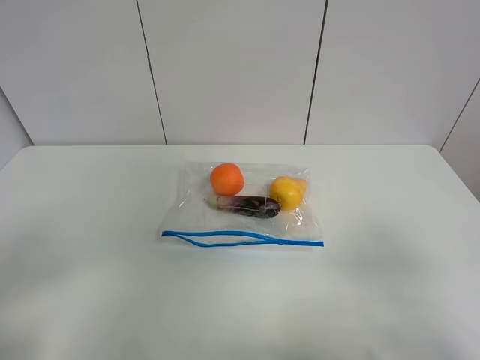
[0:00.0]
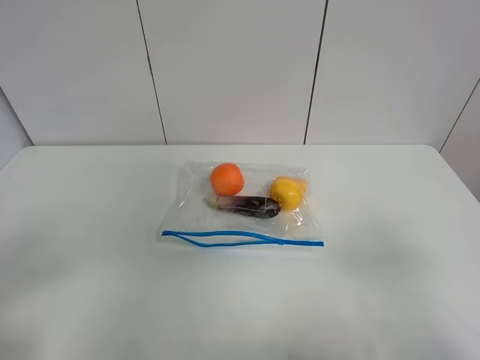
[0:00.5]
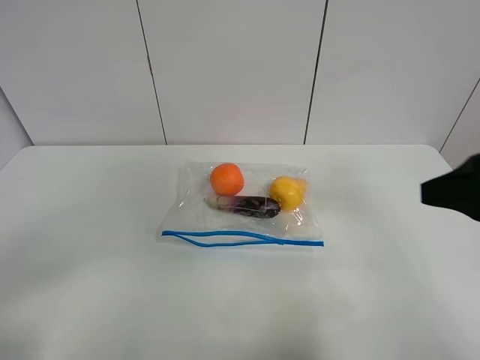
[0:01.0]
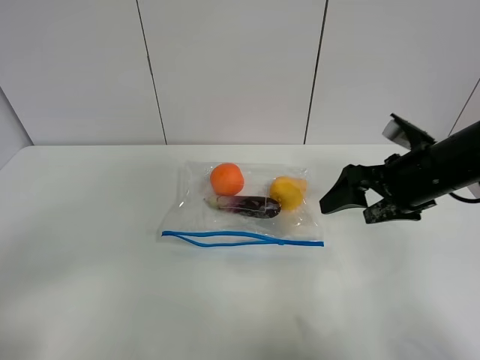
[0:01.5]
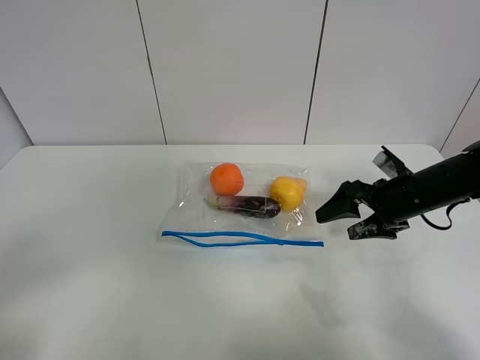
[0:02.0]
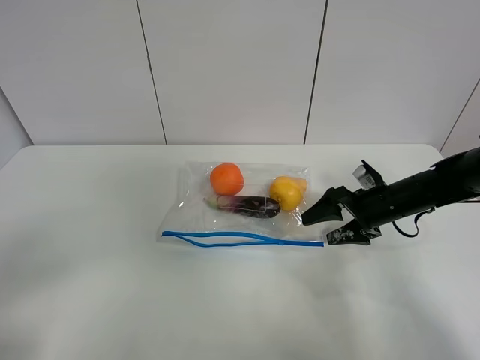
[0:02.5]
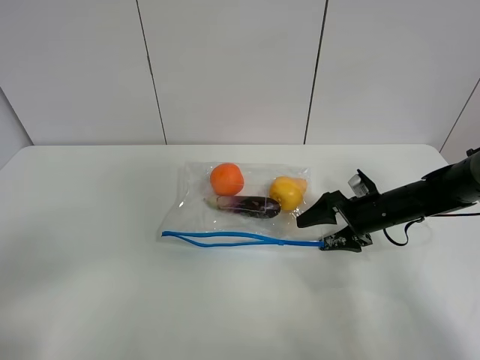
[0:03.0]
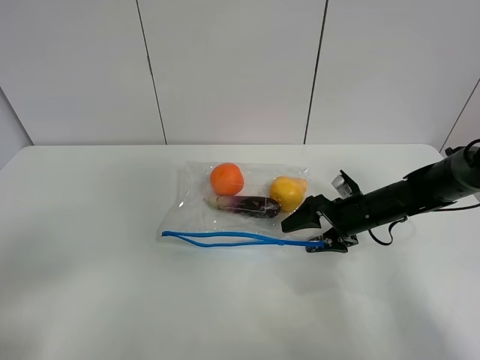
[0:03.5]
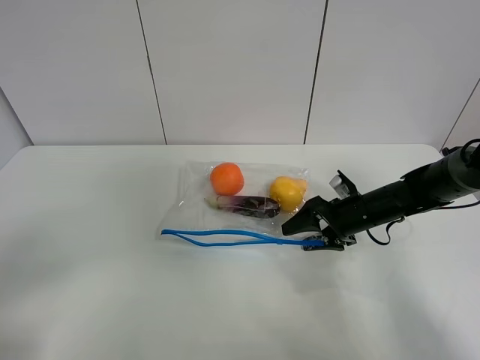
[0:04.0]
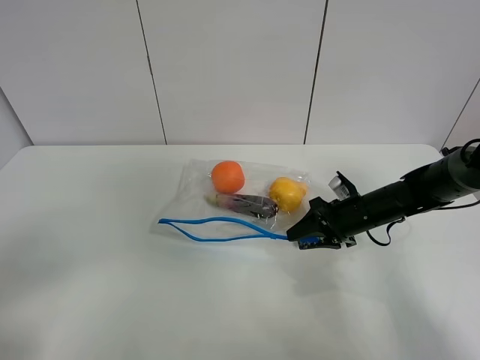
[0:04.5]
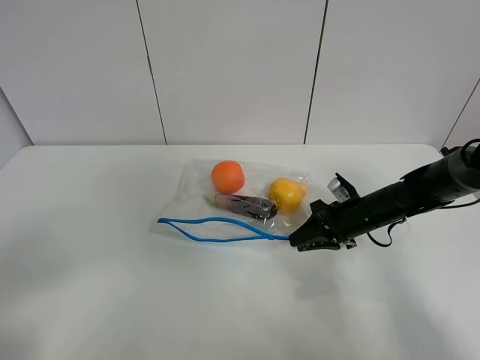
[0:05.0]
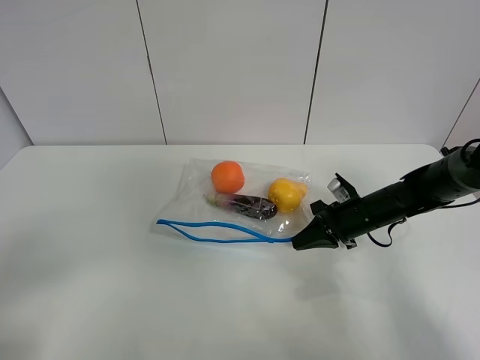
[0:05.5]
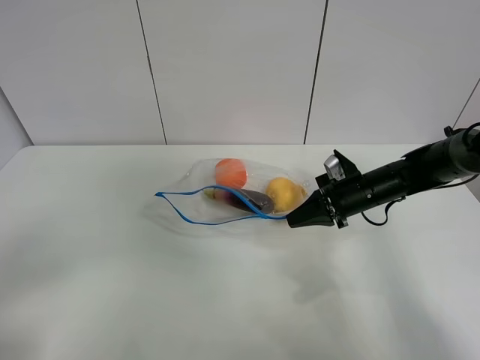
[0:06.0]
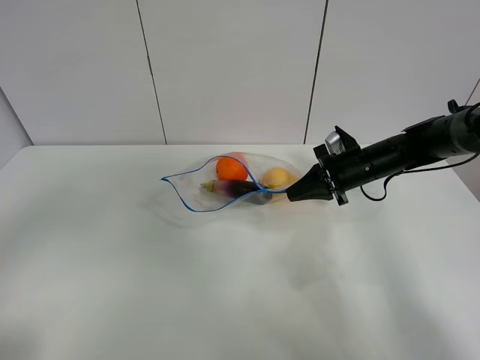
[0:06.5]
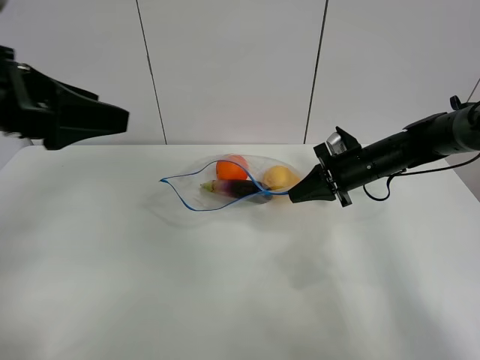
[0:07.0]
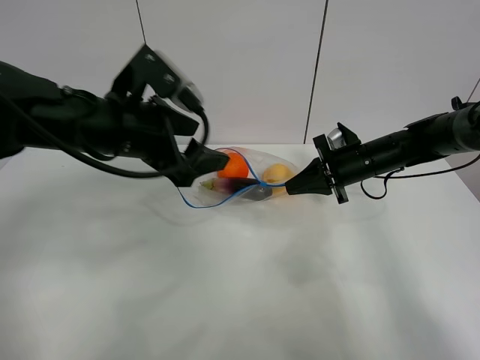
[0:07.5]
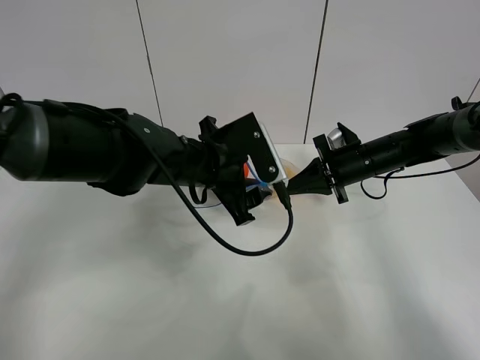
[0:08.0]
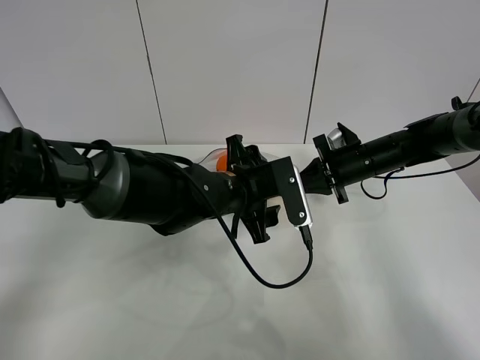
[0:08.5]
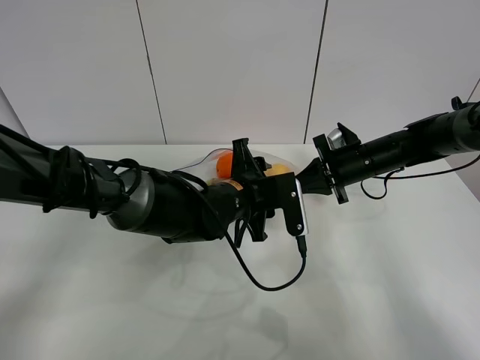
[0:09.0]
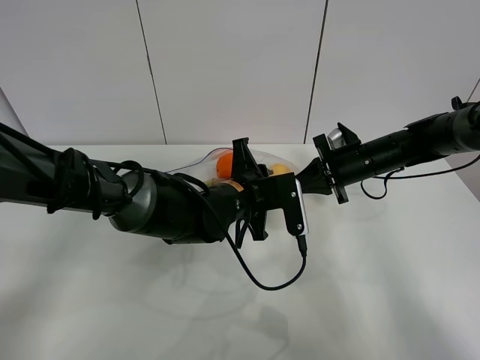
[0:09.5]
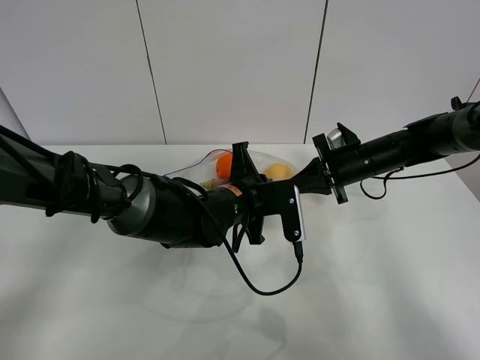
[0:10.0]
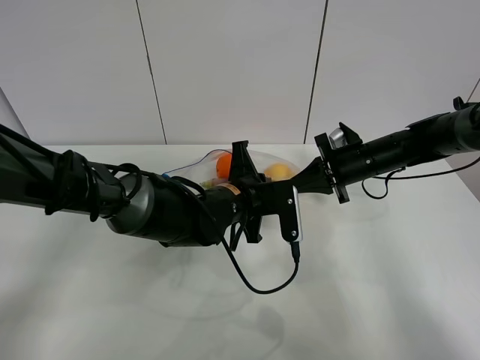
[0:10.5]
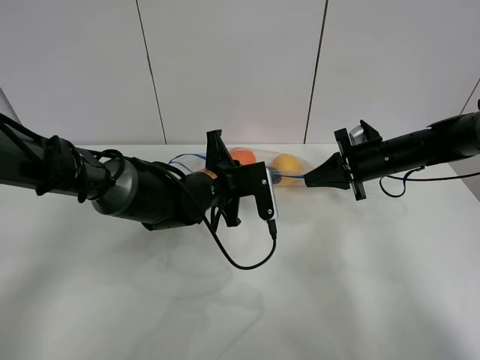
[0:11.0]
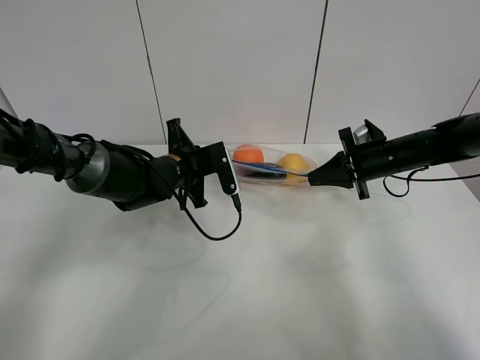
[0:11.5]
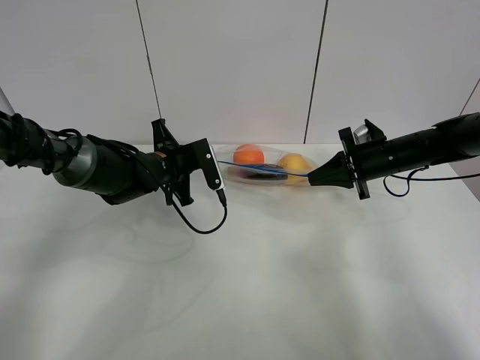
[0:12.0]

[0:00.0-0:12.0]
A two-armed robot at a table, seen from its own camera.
Step, 0:00.0 to 0:05.0: Grasp the fruit bag with right gripper.
Step, 0:05.5 to 0:06.5: Lift the fruit bag with your right gripper.
0:00.0 to 0:02.0: The right gripper heads forward and downward, covering approximately 35 cm.
0:02.0 to 0:04.0: The right gripper shifts about 5 cm downward.
0:04.0 to 0:06.0: The right gripper closes up.
0:06.0 to 0:08.0: The left gripper moves forward and to the right, about 40 cm.
0:08.0 to 0:10.0: The left gripper heads downward, covering about 5 cm, and closes up.
0:10.0 to 0:12.0: The left gripper shifts approximately 15 cm to the left and forward.

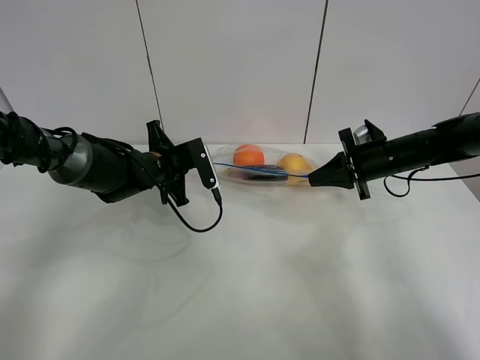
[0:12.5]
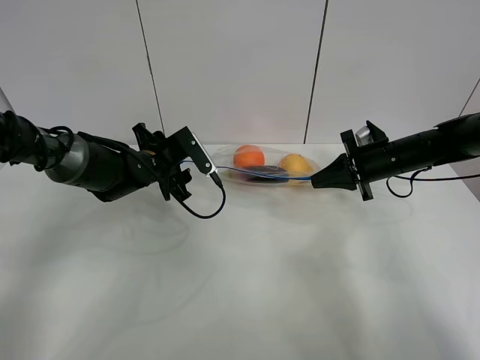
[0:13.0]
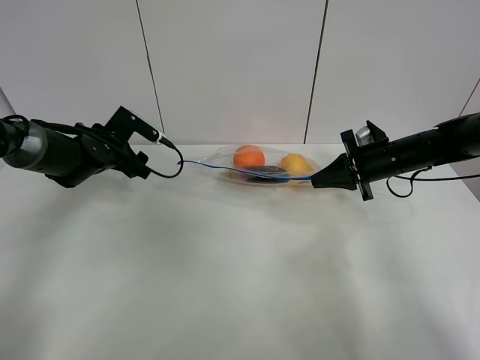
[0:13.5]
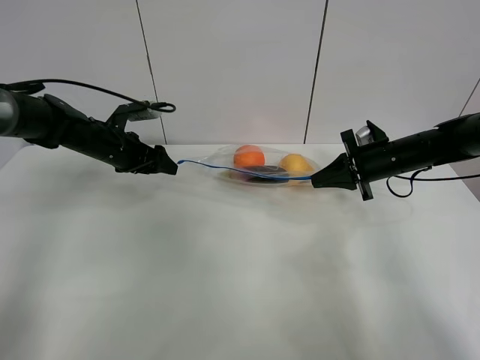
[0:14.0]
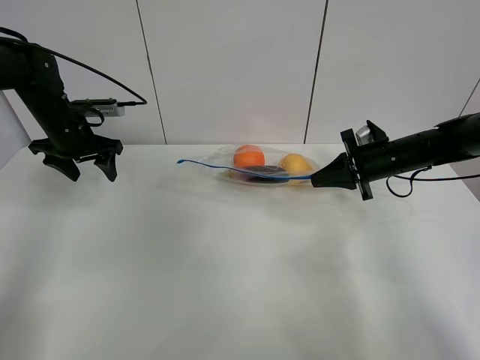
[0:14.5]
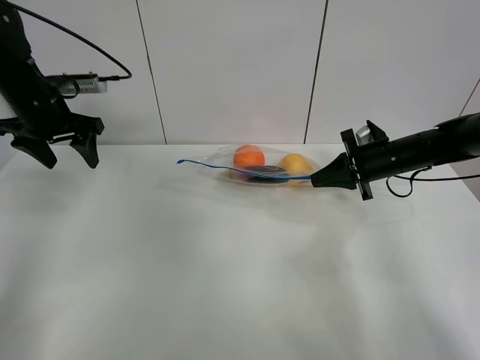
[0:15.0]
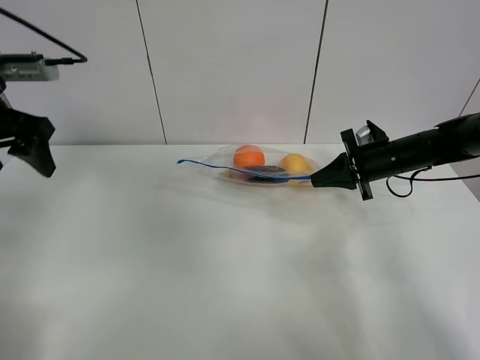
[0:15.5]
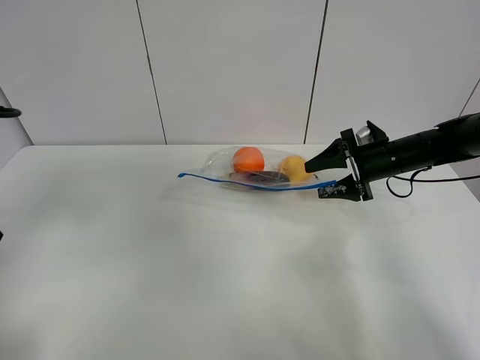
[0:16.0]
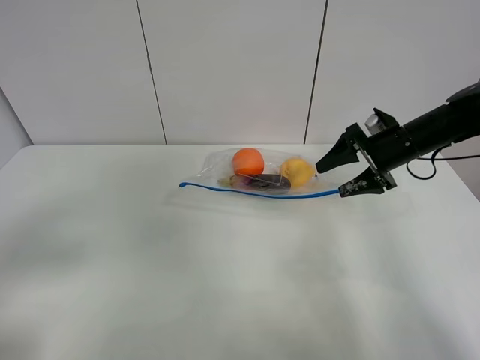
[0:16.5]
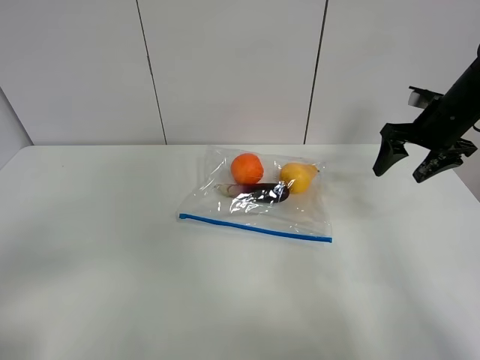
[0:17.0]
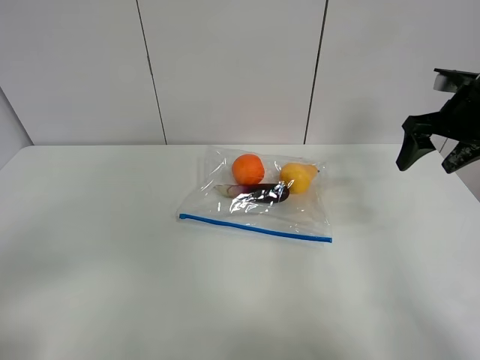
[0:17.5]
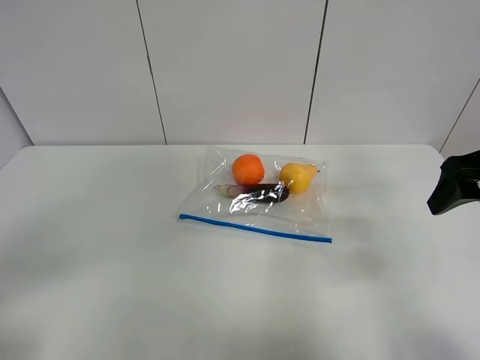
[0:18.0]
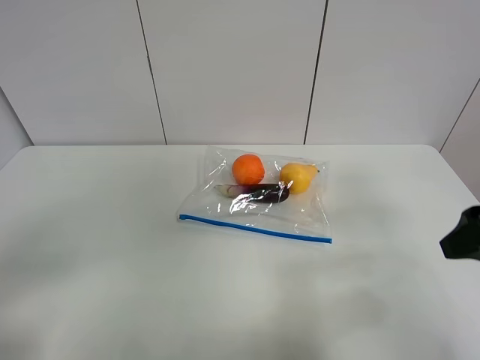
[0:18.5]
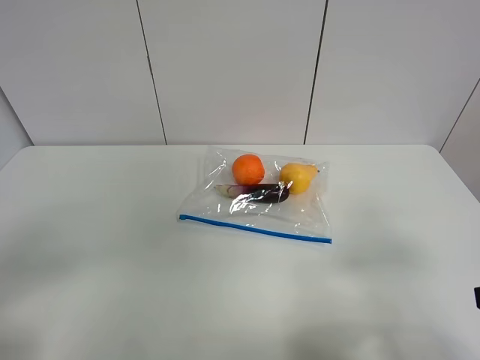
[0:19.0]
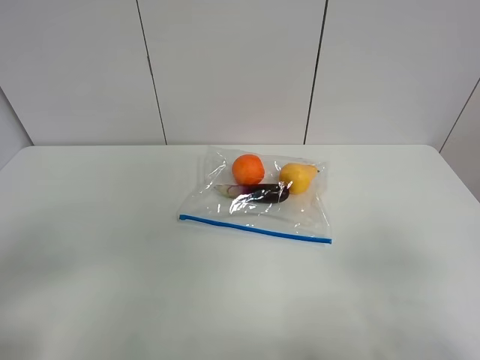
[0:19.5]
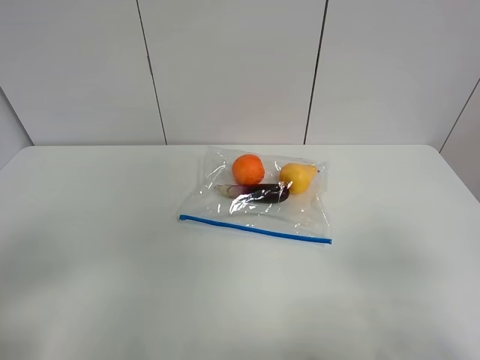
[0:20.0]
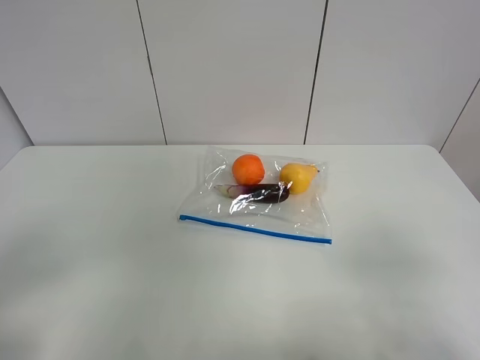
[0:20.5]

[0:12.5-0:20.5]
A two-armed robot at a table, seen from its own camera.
Step, 0:13.5 to 0:17.0: Place the fruit bag with right gripper.
0:12.5 to 0:14.5: The left gripper shifts some 15 cm to the left and upward, and opens.
0:14.5 to 0:16.5: The right gripper opens up. The left gripper goes roughly 35 cm backward.
0:16.5 to 0:18.5: The left gripper heads backward, covering some 5 cm. The right gripper is displaced backward by approximately 25 cm.
0:18.5 to 0:20.5: The right gripper moves backward, roughly 15 cm.

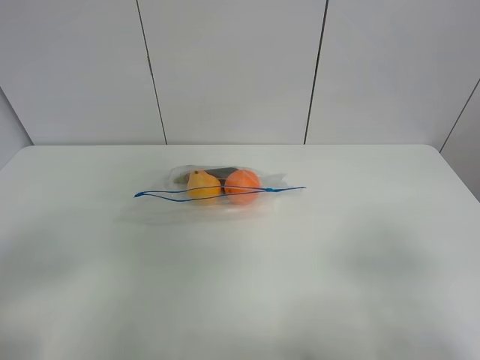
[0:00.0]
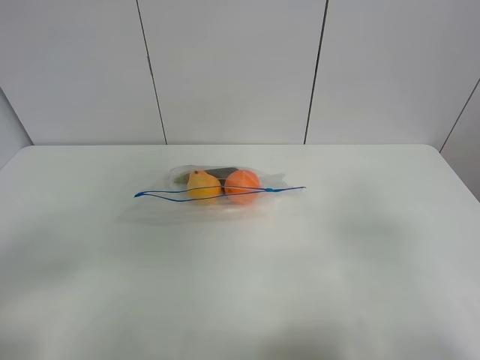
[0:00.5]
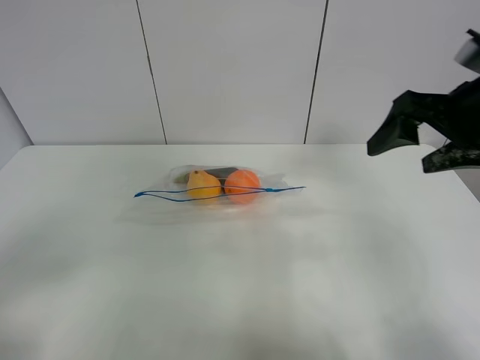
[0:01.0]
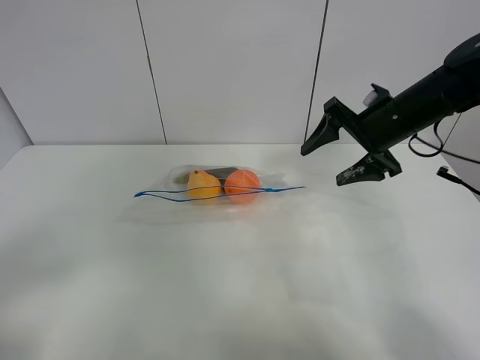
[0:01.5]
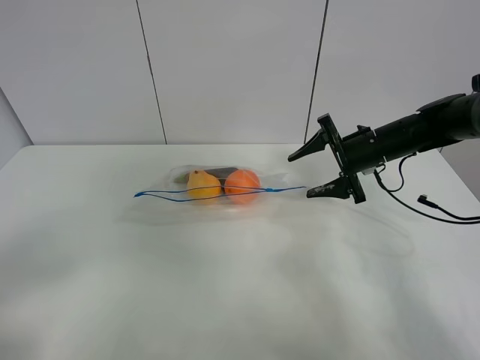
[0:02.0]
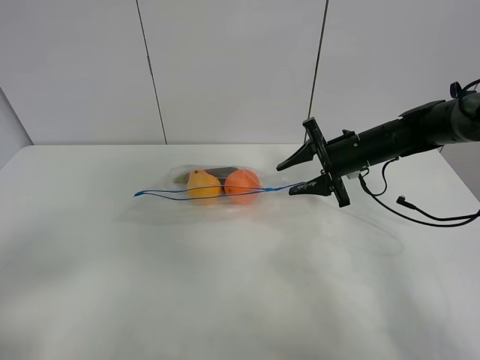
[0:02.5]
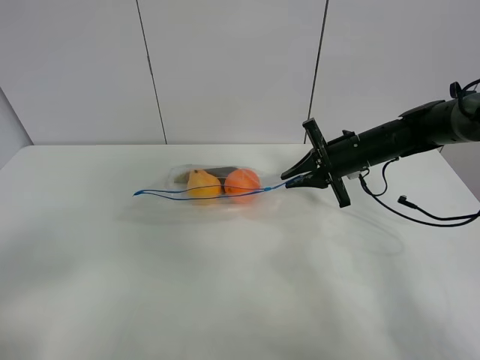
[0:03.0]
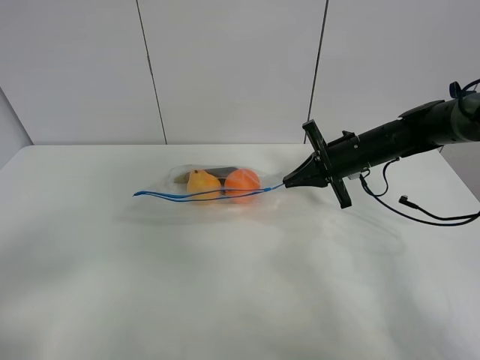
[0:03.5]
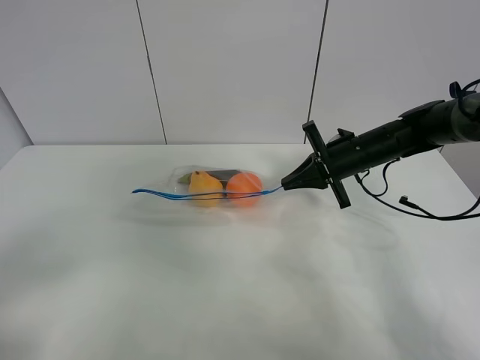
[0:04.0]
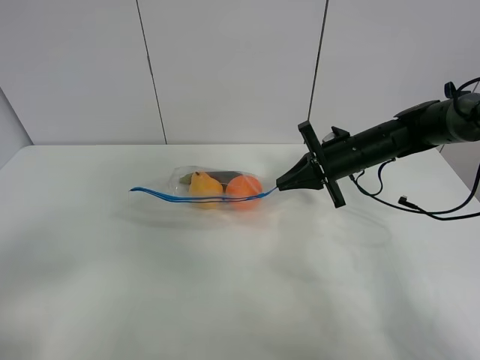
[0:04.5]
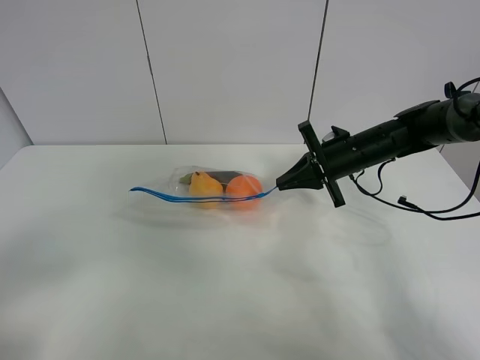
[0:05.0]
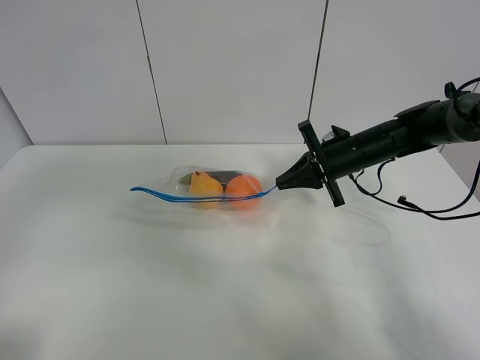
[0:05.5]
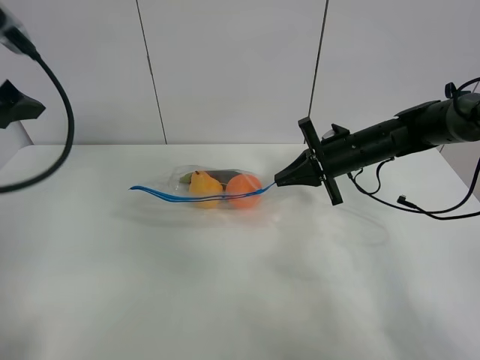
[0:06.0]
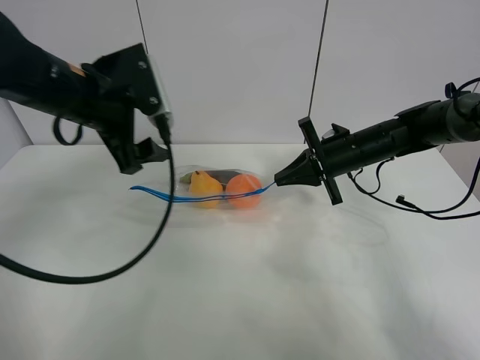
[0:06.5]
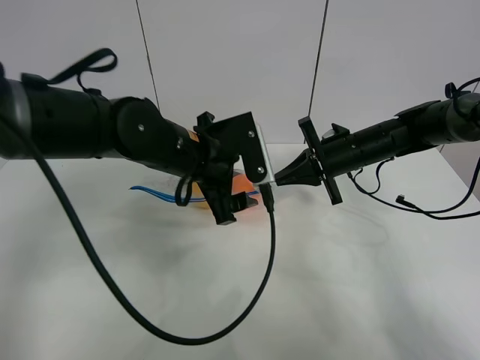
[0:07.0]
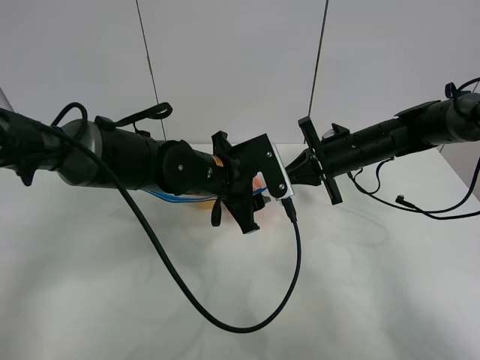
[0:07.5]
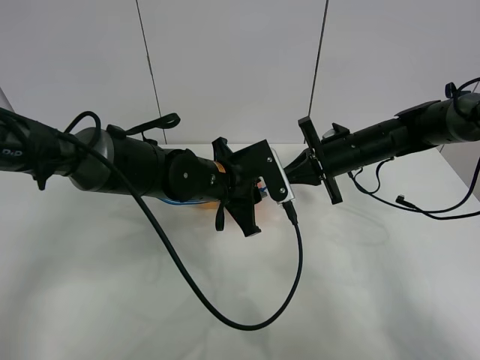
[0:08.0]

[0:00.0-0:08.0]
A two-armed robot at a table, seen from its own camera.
Step, 0:00.0 to 0:03.5: Grasp the fruit bag with right gripper.
0:00.0 to 0:02.0: The right gripper goes about 40 cm forward.
0:02.0 to 0:04.0: The right gripper closes up.
0:04.0 to 0:06.0: The left gripper is displaced forward by roughly 25 cm.
0:06.0 to 0:08.0: The left gripper moves to the right and downward, about 35 cm, and closes up.
